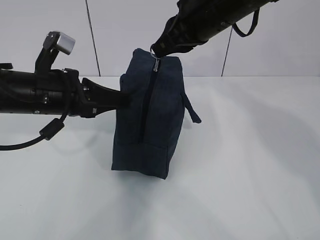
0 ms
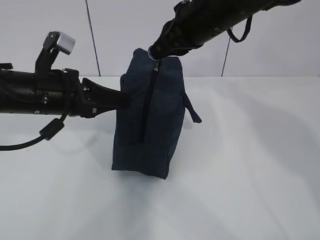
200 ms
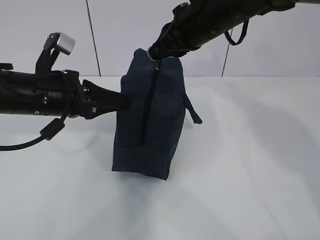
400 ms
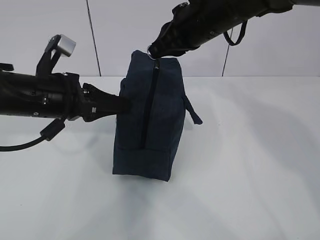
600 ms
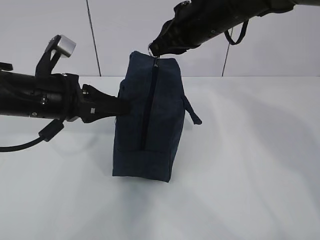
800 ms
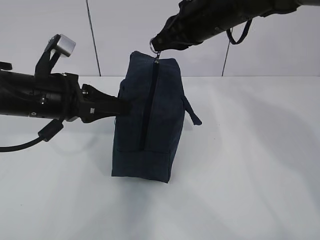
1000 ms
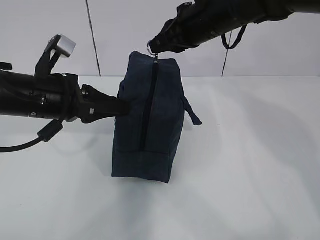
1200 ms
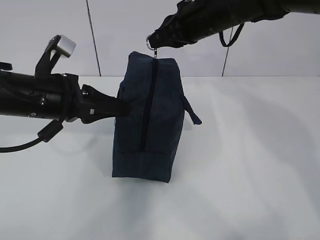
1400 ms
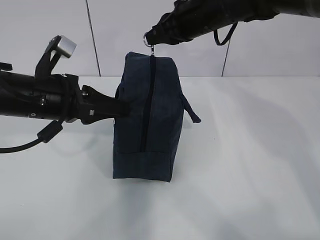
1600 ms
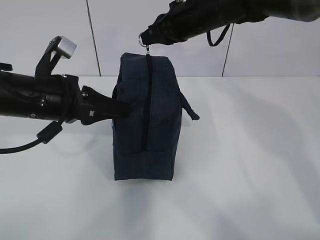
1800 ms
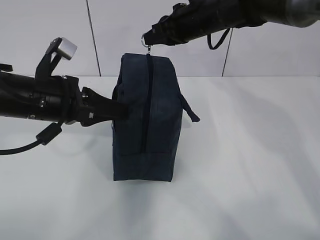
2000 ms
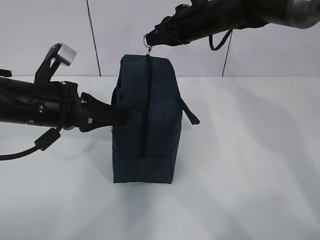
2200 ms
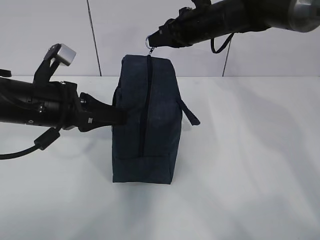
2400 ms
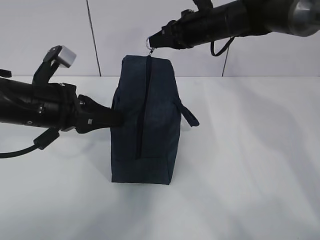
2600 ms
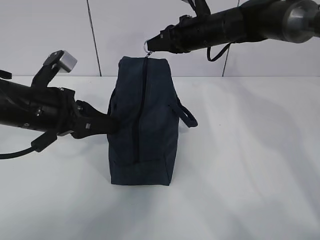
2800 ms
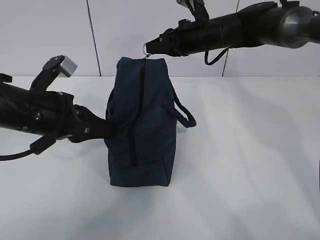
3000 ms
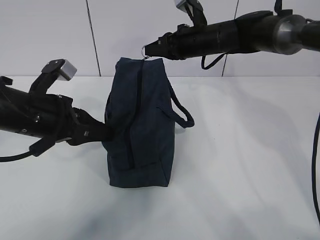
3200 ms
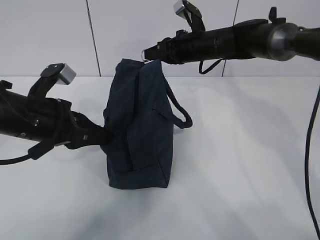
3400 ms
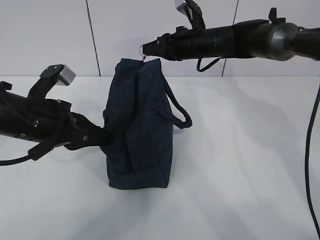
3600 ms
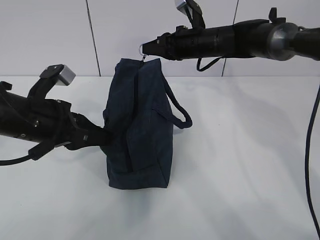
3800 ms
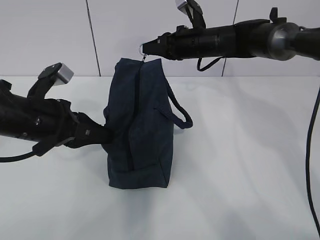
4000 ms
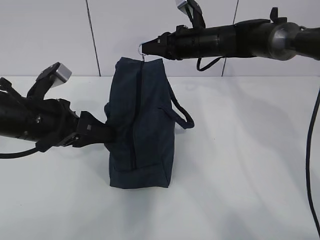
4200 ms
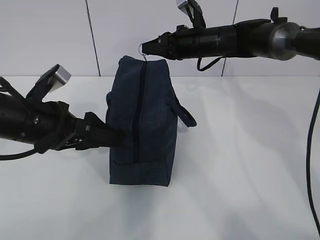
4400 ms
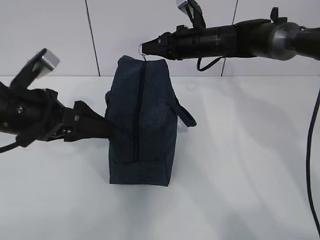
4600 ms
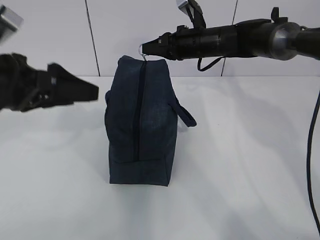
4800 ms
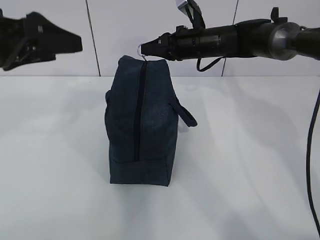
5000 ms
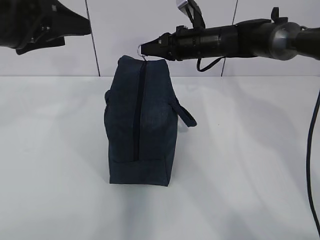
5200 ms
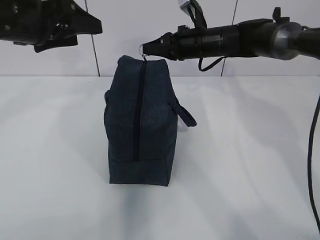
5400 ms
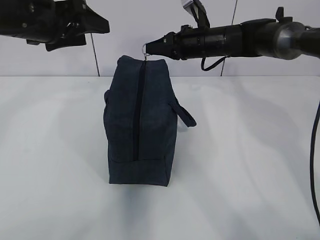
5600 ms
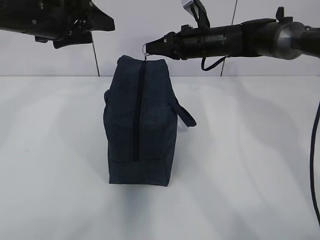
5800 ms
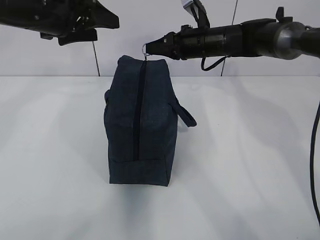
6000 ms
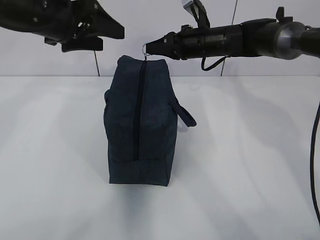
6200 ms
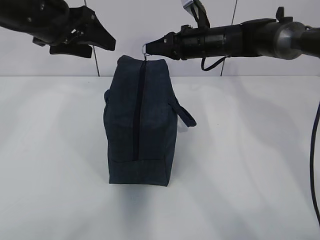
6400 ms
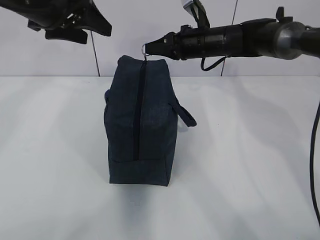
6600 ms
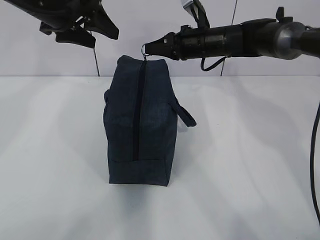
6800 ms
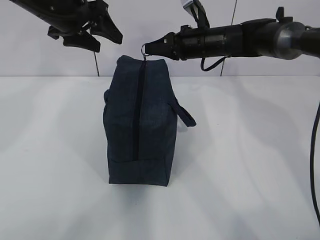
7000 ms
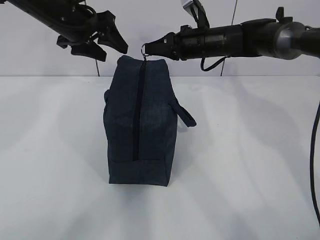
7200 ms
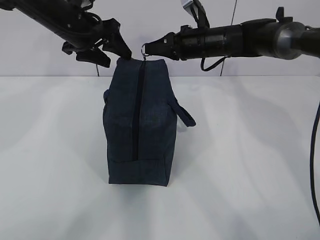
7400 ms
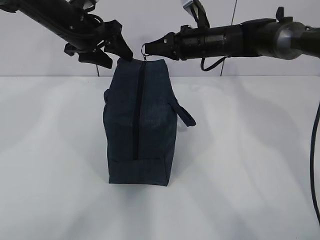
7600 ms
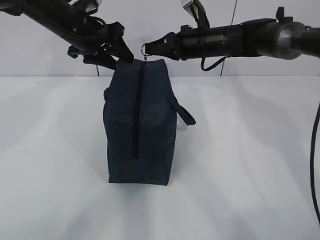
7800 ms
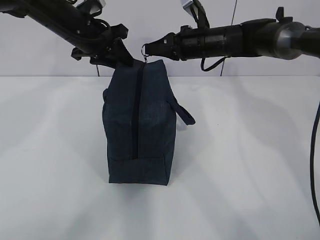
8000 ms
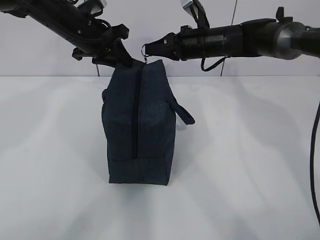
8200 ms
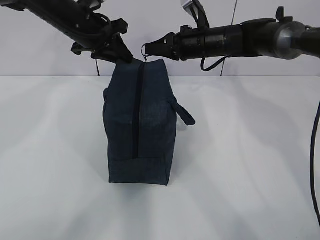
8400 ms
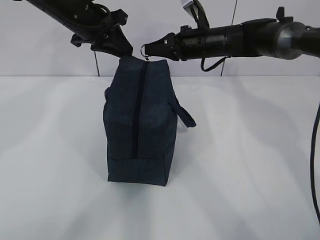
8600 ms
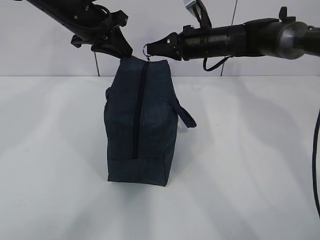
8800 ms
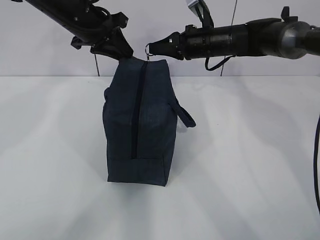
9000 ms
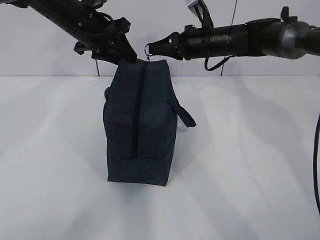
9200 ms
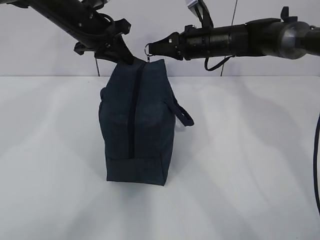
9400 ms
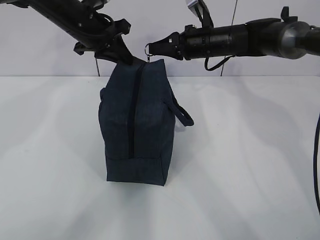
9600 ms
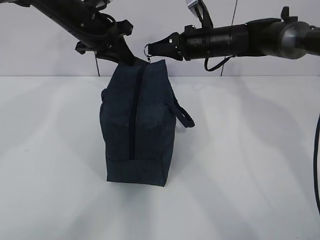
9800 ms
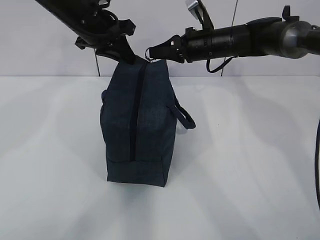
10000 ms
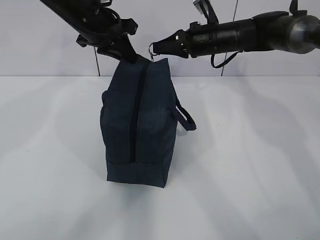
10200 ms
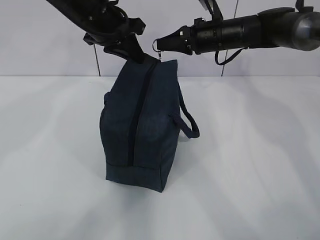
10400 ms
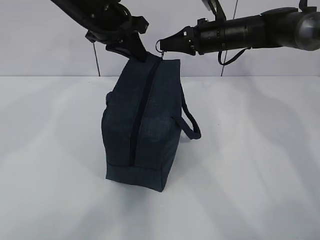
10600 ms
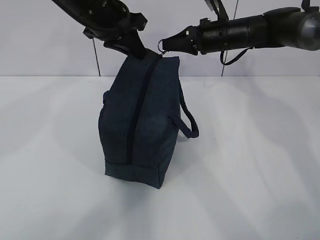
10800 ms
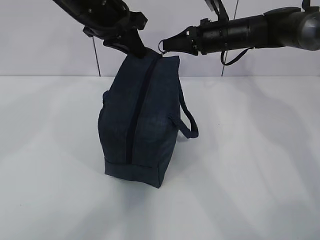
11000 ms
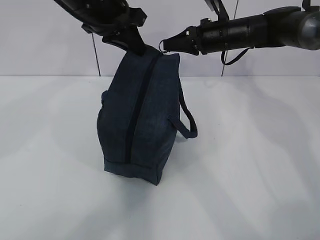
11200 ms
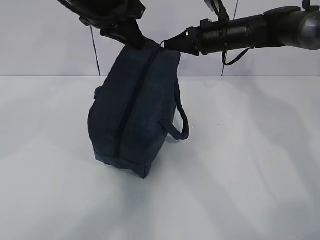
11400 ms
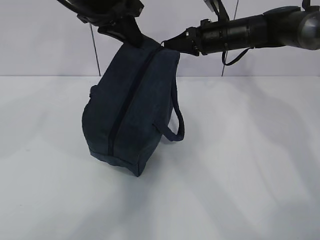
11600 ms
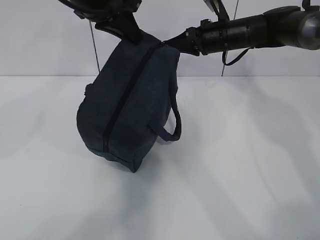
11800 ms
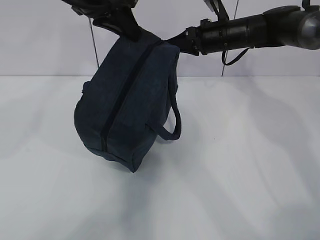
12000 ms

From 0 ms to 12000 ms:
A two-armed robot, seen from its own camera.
From 0 ms to 1600 ms: The right gripper is displaced forward by some 5 cm.
From 1600 ms to 3000 ms: The right gripper goes about 10 cm downward and forward.
From 3000 ms to 4400 ms: The left gripper opens.
From 4400 ms to 6000 ms: The left gripper shifts about 15 cm upward and forward.
From 6000 ms to 7600 ms: The left gripper goes roughly 5 cm forward.
From 7600 ms to 9000 ms: The left gripper closes.
From 9000 ms to 10400 ms: There are only small adjustments of the grippers.
From 10400 ms to 12000 ms: The left gripper moves upward, some 5 cm.

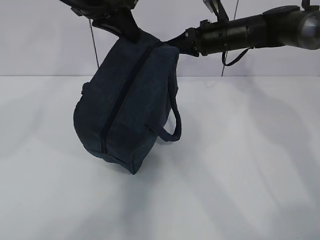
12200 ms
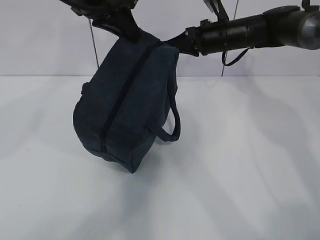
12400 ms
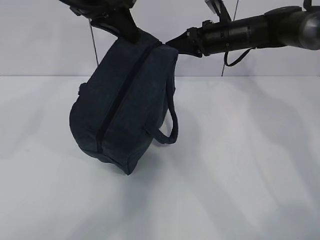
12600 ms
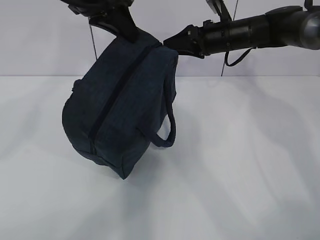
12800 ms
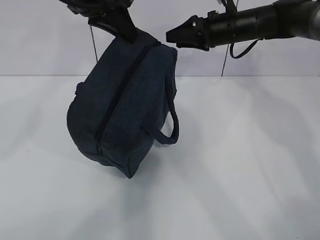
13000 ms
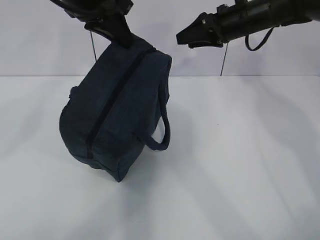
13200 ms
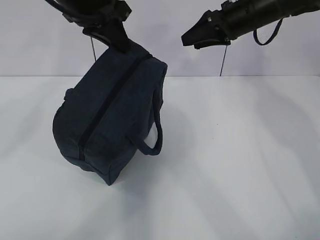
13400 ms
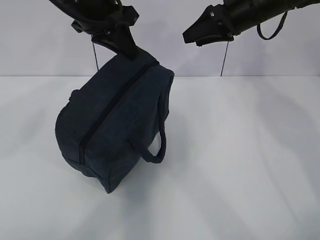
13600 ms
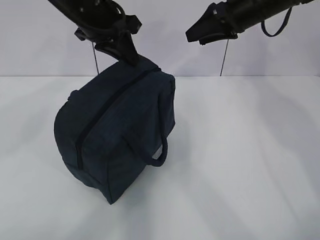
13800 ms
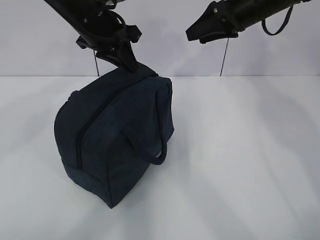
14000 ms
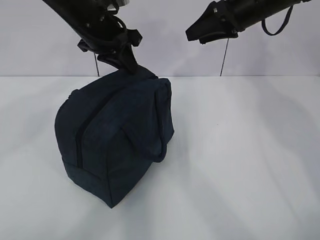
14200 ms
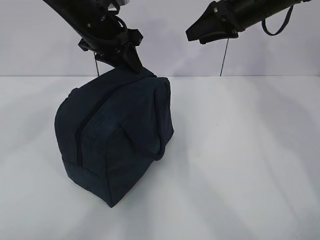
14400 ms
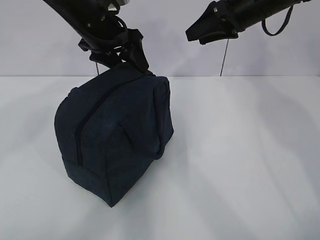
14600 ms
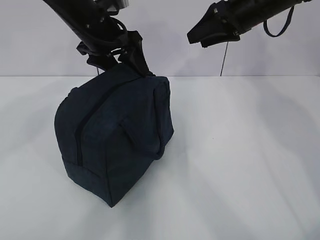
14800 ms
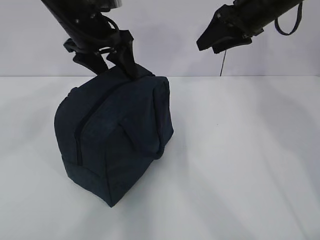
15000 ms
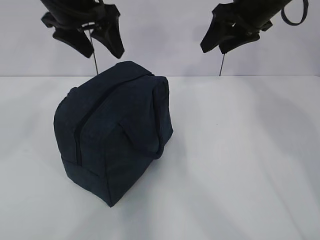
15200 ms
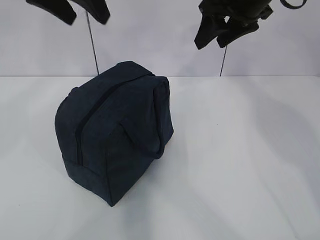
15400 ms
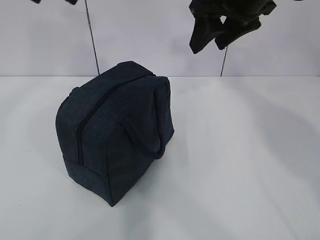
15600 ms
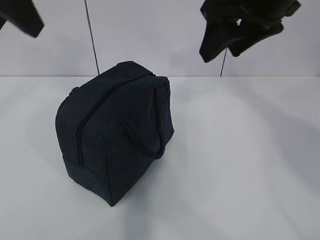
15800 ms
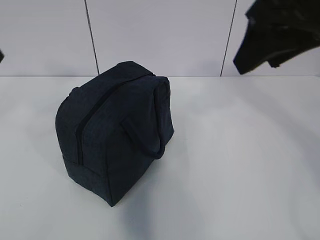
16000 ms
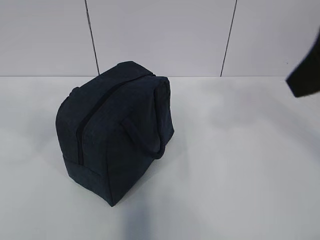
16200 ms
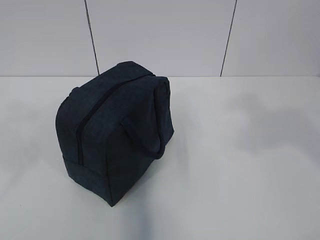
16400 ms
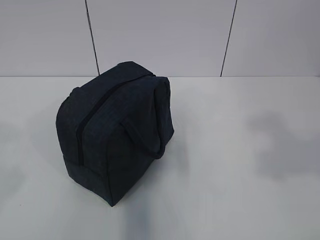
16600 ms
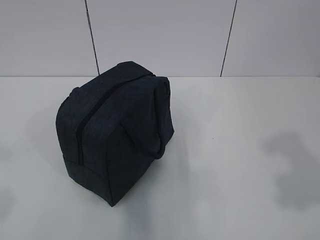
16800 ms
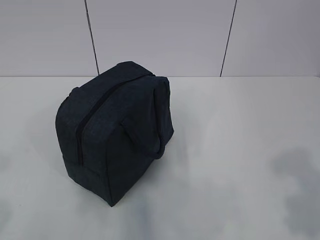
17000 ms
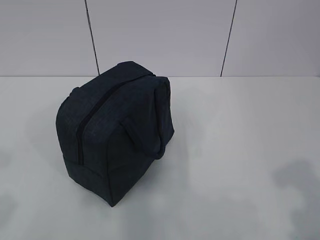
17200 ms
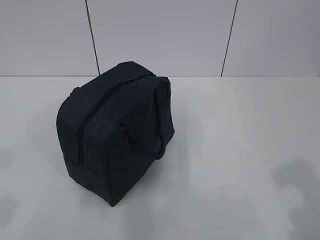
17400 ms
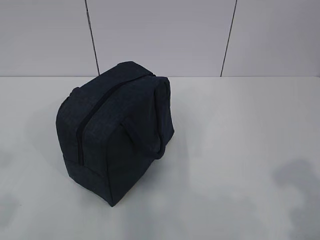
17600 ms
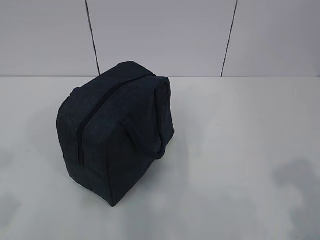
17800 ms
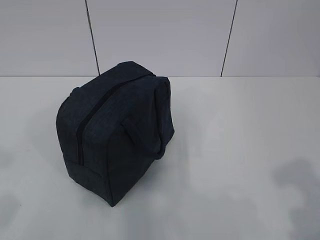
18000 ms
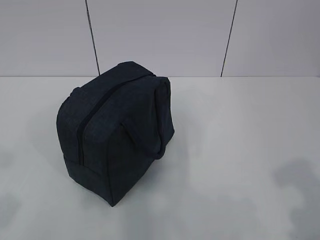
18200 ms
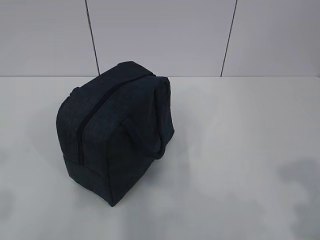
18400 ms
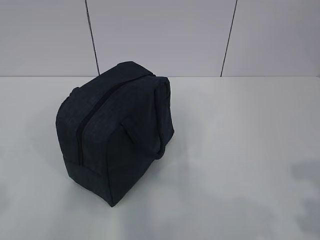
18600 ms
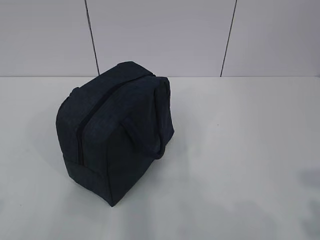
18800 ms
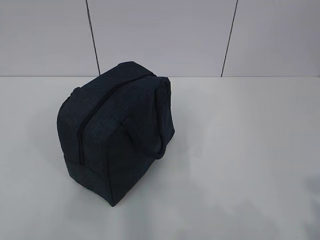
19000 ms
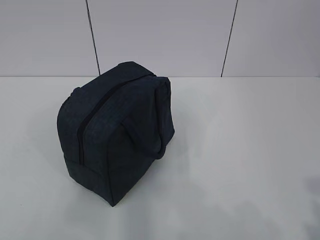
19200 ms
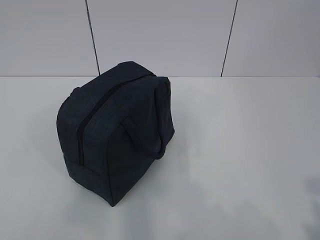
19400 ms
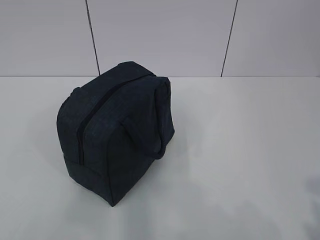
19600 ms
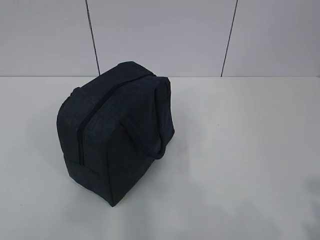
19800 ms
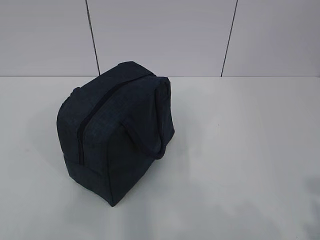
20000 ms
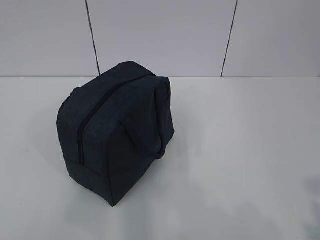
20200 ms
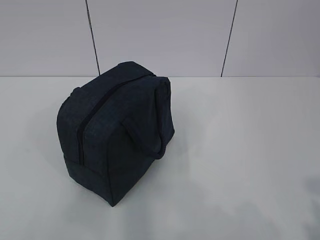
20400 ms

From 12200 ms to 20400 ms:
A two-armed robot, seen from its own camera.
From 12200 ms to 13800 ms: The right gripper heads upward, covering about 10 cm, and opens its fingers.
From 13800 ms to 15400 ms: The right gripper moves backward, roughly 5 cm. Meanwhile the left gripper heads upward, covering approximately 10 cm, and opens.
From 15400 ms to 17200 ms: The right gripper heads backward, covering approximately 35 cm. The left gripper goes approximately 35 cm backward and to the left.

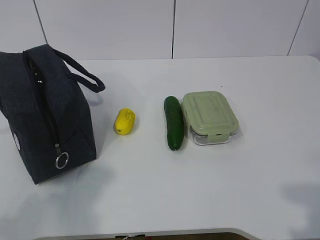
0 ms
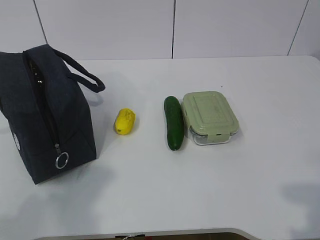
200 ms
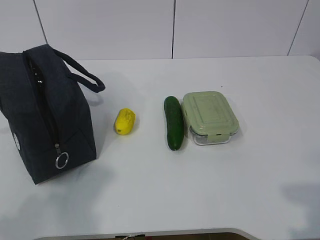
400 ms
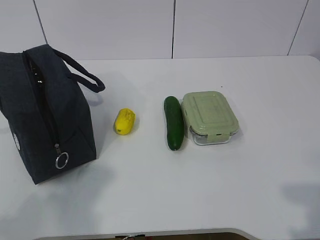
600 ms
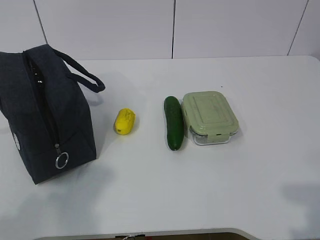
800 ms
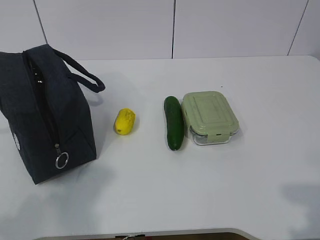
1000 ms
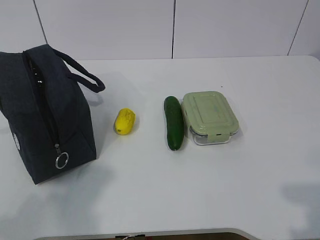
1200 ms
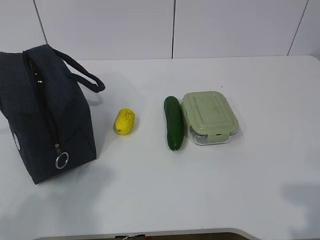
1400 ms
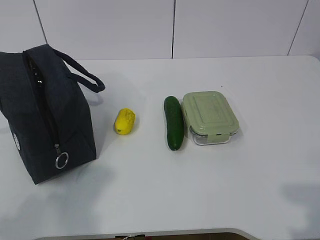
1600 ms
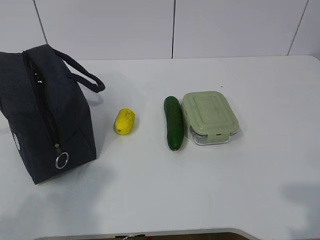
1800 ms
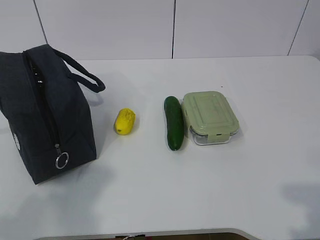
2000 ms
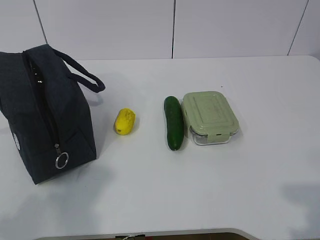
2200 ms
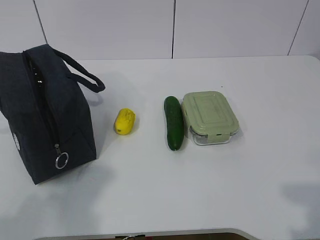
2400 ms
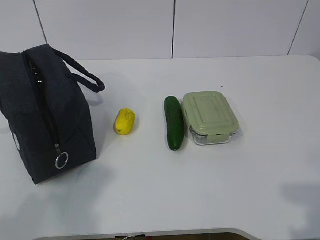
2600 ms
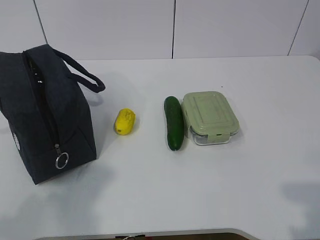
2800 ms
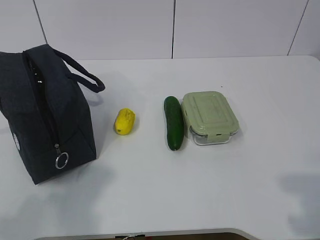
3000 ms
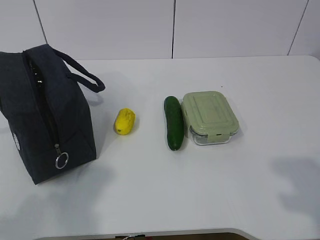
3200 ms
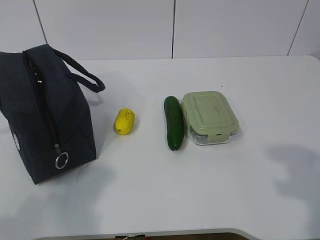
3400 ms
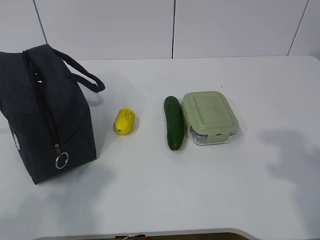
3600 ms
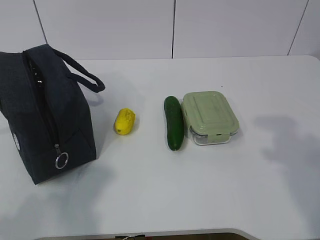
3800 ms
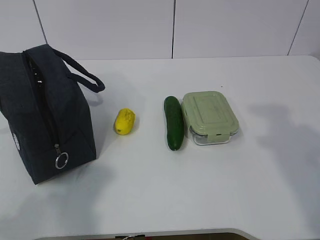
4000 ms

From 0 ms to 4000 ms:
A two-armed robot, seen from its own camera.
From 1400 ms to 2600 ms: Both grippers stay put.
From 2600 ms to 4000 ms: The right gripper travels forward and upward by some 15 cm.
